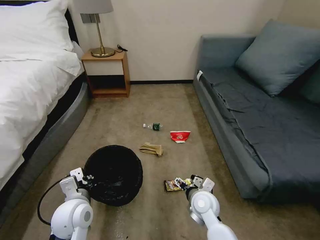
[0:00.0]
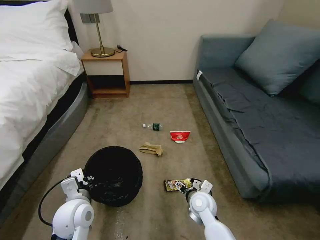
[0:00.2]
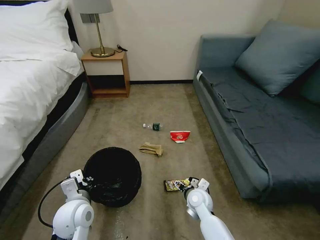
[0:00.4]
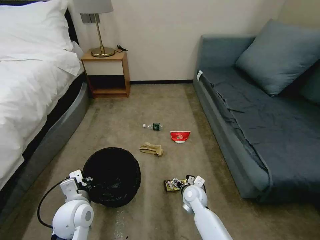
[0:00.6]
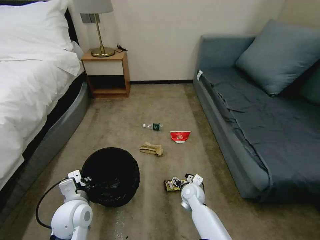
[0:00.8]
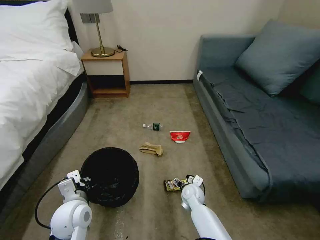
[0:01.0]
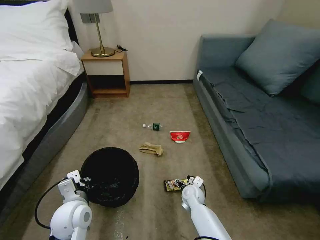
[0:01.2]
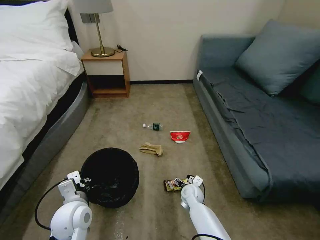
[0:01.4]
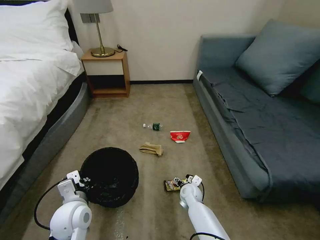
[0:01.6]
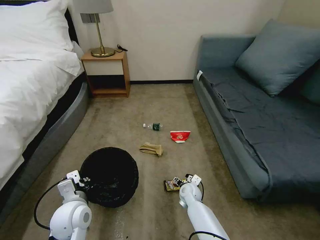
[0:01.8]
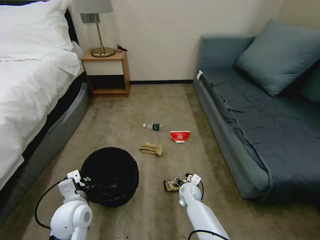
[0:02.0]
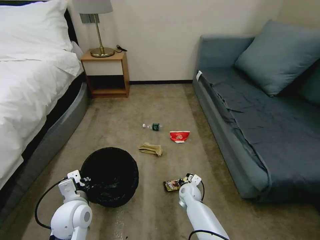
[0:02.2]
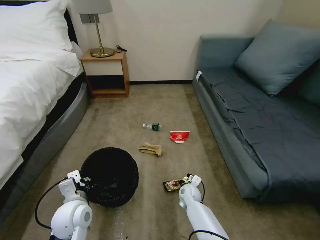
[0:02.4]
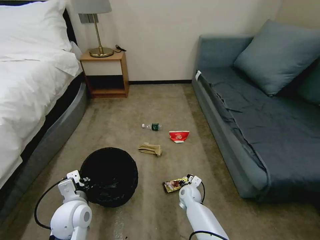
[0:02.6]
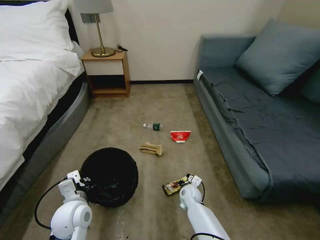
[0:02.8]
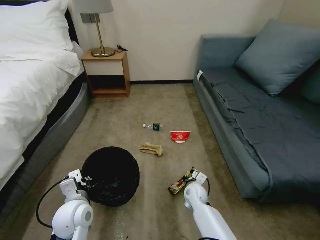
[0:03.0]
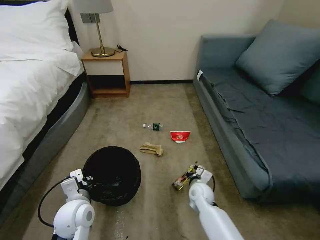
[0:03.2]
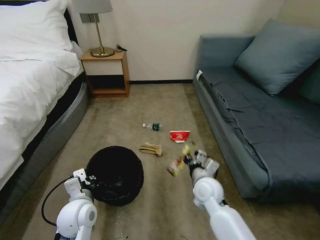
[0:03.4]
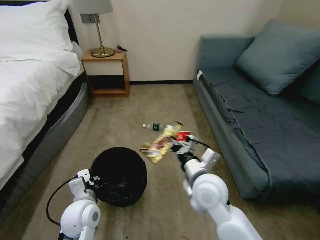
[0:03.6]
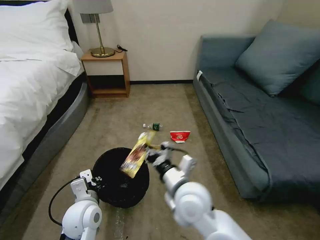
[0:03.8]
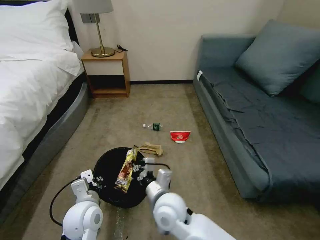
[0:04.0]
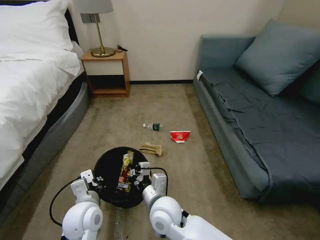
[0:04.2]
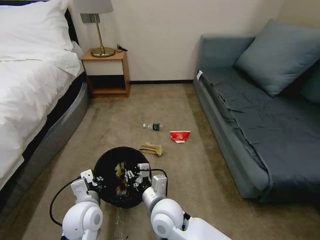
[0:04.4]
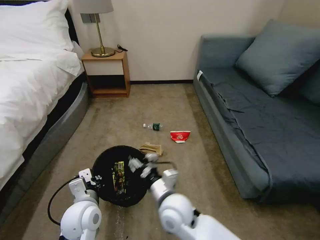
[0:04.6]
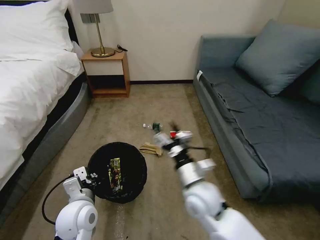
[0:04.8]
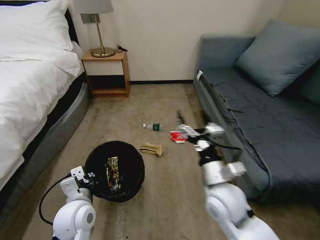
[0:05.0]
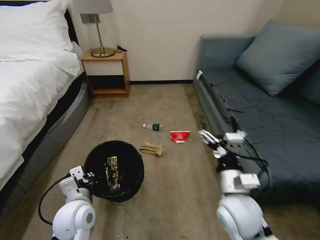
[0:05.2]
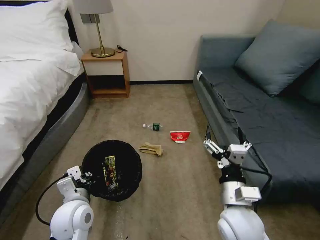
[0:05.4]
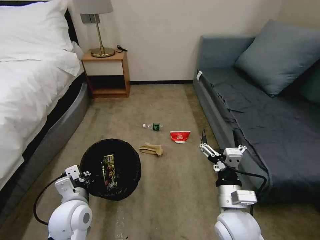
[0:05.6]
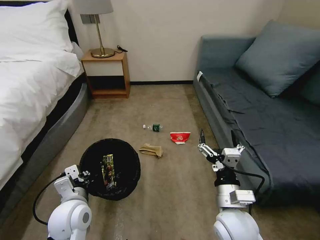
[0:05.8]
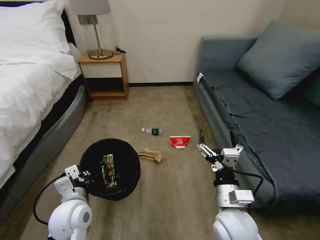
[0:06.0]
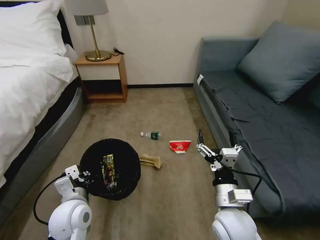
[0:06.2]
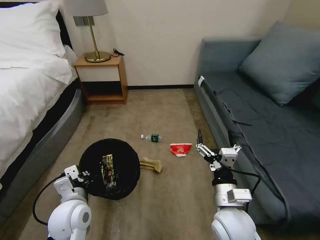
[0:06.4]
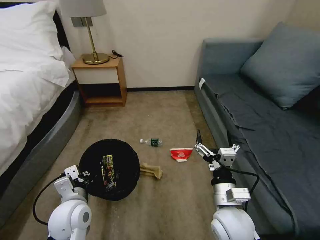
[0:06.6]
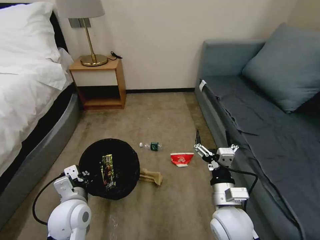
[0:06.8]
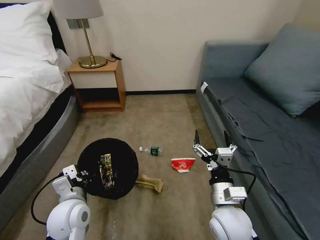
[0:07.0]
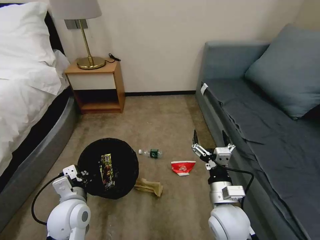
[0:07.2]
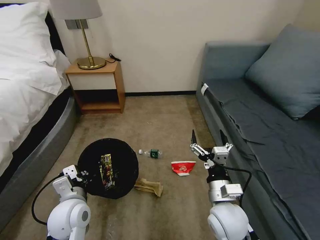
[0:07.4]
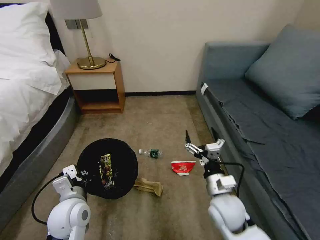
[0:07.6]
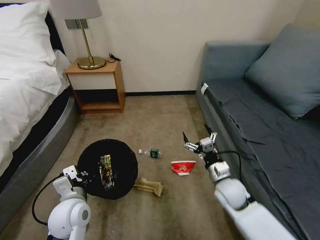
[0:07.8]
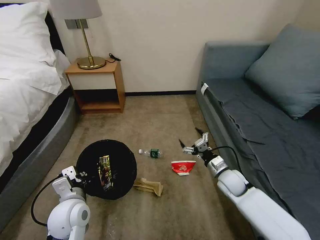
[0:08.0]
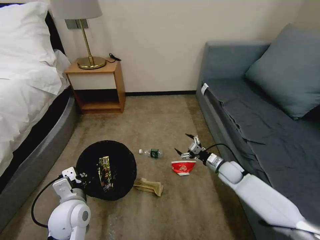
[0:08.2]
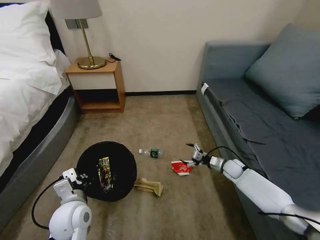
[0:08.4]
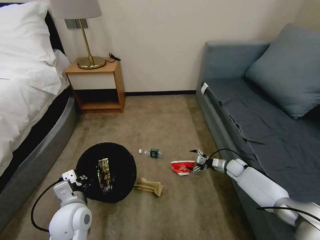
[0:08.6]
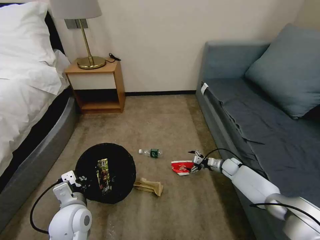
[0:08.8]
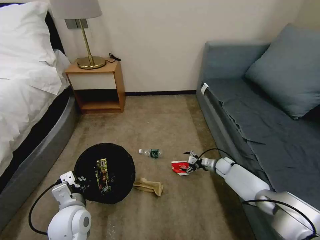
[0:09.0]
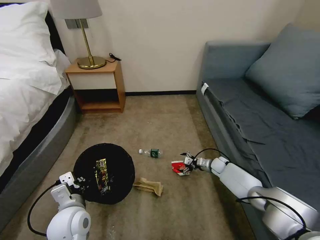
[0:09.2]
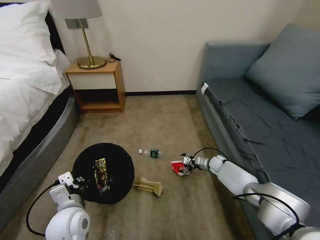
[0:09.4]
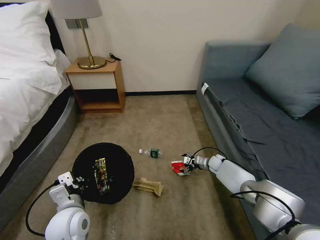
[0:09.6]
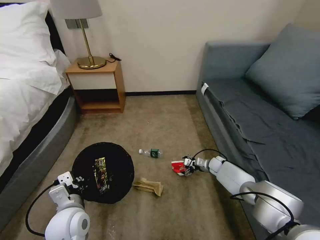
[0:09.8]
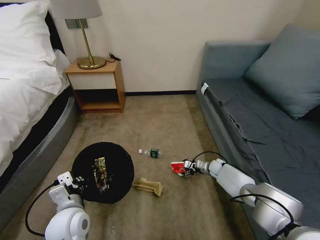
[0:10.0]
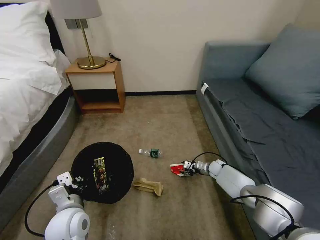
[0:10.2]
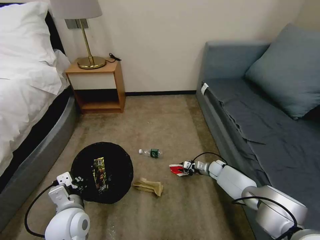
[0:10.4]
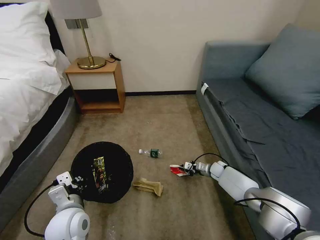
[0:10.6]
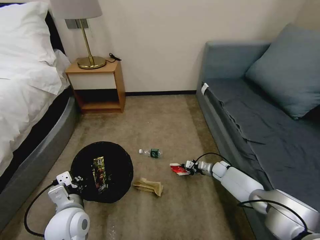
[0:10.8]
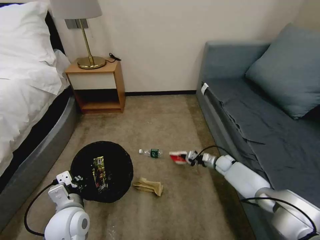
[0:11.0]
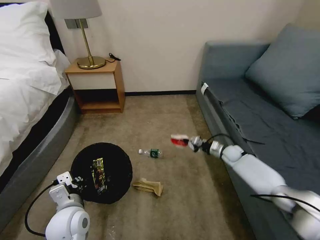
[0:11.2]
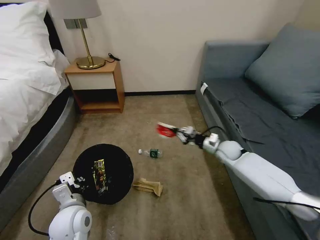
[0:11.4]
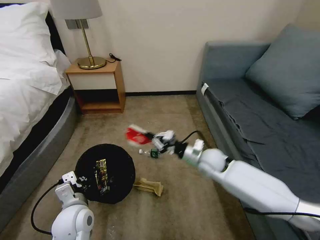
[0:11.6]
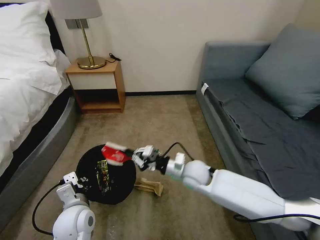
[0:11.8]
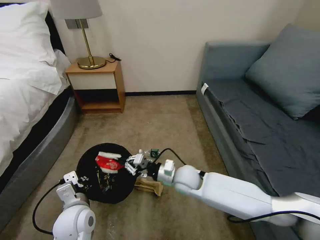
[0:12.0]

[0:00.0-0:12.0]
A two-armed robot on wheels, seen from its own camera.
Task of the whole recording: Pick up the trash bin, then pick up the garbage on the floor and place it into the trash bin.
0:00.0 to 0:01.6: The right gripper moves downward and forward, roughly 15 cm.
0:01.6 to 0:03.0: The right gripper closes.
0:03.0 to 0:04.4: The right gripper moves upward, to the left and backward, about 25 cm.
0:04.4 to 0:06.0: The right gripper shifts approximately 15 cm to the right, and opens up.
0:06.0 to 0:07.6: The right gripper changes place by some 5 cm.
0:07.6 to 0:09.0: The right gripper goes some 35 cm forward, downward and to the right.
0:09.0 to 0:10.4: The right gripper closes.
0:10.4 to 0:12.0: The right gripper goes roughly 30 cm to the left, upward and backward.

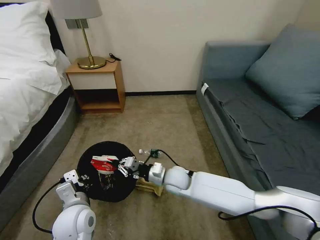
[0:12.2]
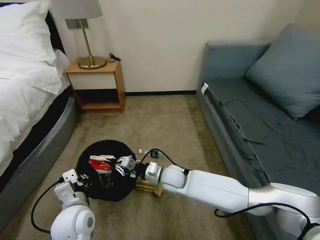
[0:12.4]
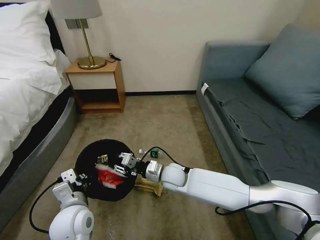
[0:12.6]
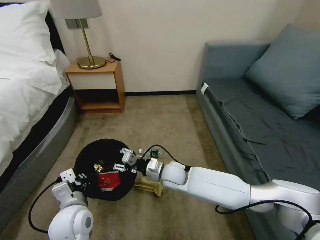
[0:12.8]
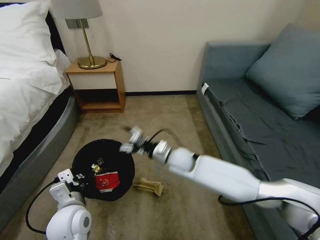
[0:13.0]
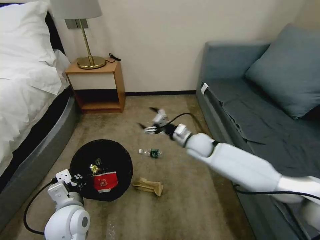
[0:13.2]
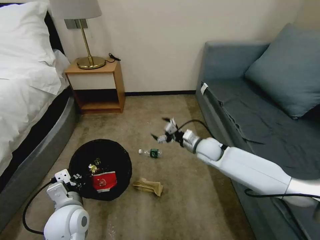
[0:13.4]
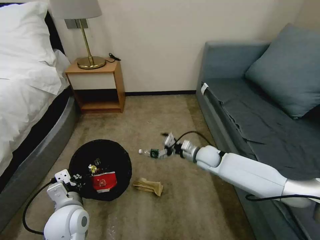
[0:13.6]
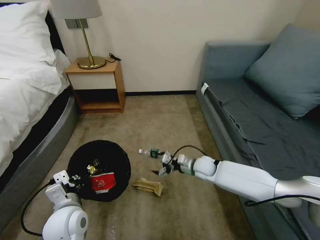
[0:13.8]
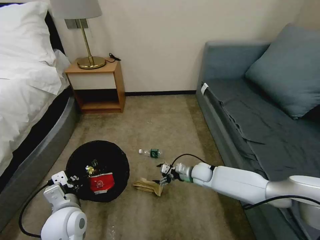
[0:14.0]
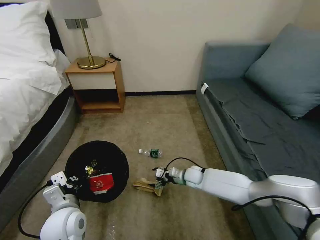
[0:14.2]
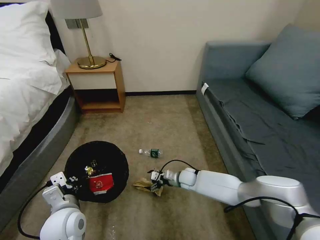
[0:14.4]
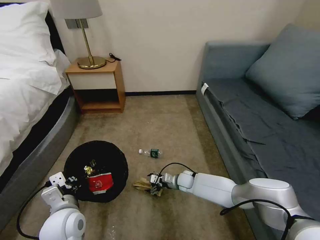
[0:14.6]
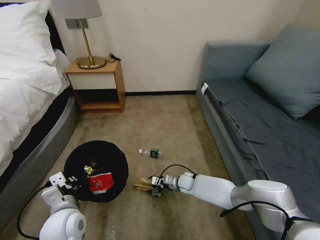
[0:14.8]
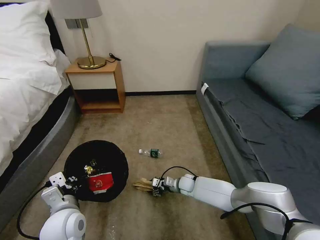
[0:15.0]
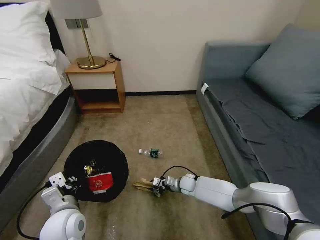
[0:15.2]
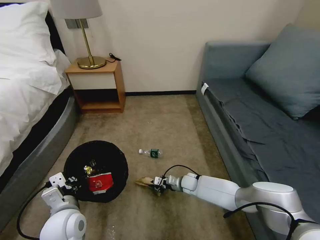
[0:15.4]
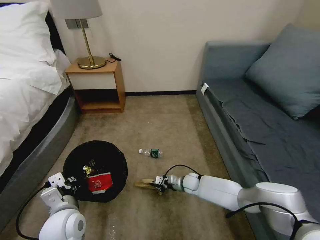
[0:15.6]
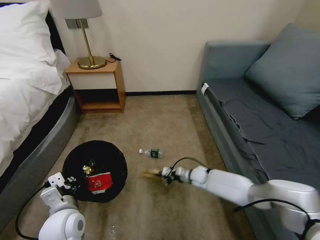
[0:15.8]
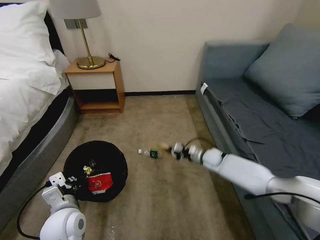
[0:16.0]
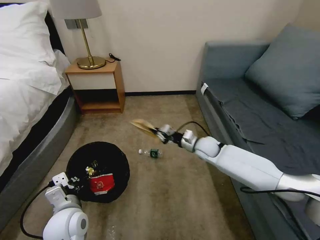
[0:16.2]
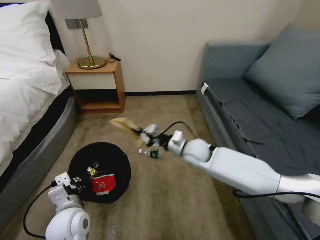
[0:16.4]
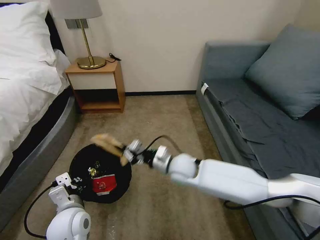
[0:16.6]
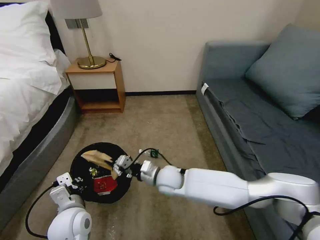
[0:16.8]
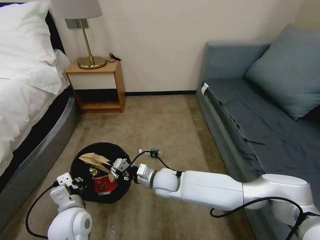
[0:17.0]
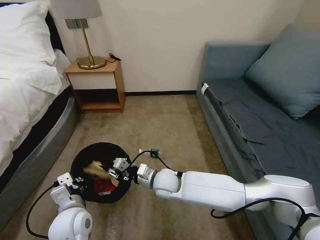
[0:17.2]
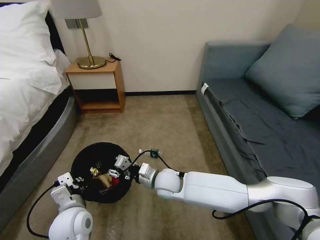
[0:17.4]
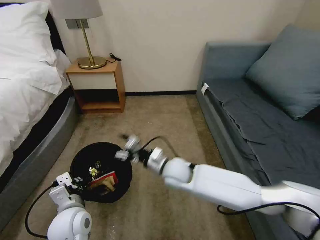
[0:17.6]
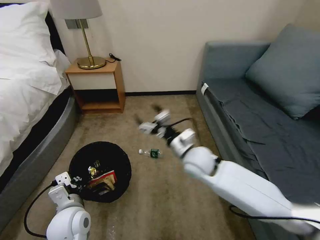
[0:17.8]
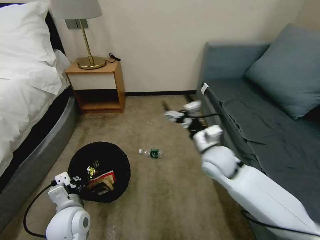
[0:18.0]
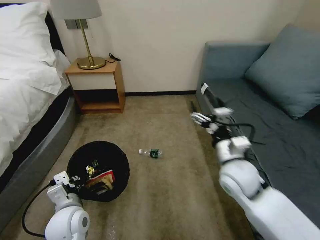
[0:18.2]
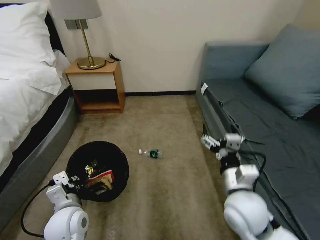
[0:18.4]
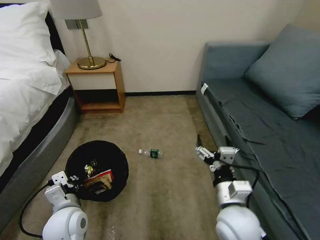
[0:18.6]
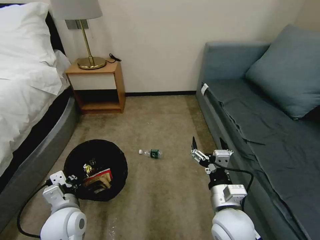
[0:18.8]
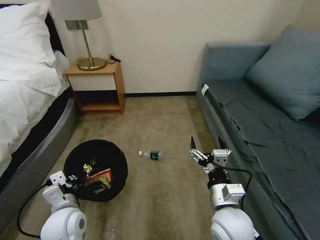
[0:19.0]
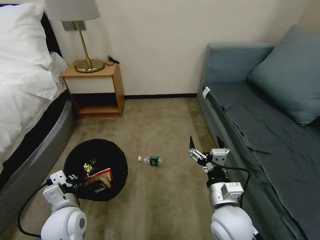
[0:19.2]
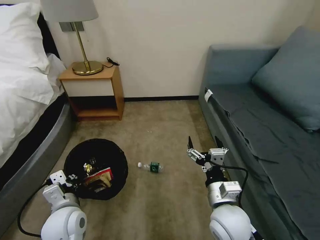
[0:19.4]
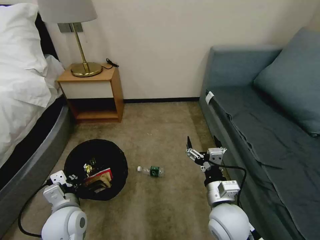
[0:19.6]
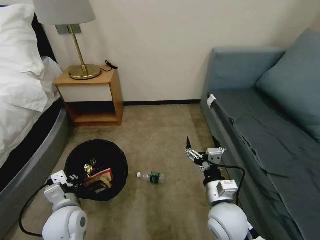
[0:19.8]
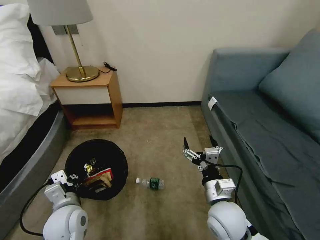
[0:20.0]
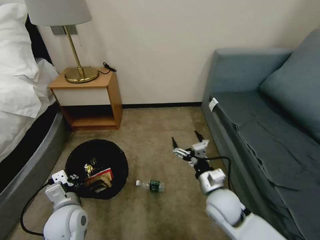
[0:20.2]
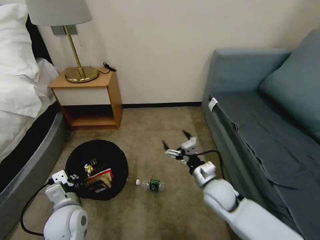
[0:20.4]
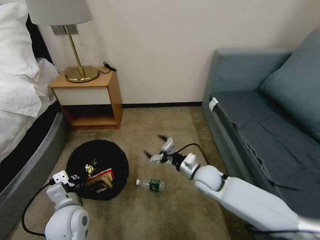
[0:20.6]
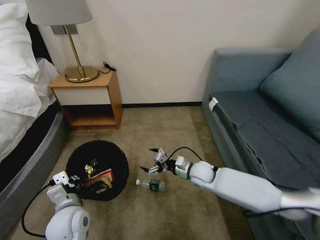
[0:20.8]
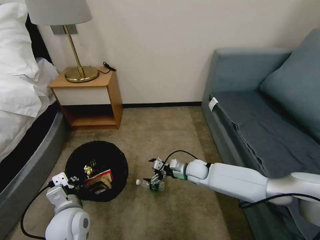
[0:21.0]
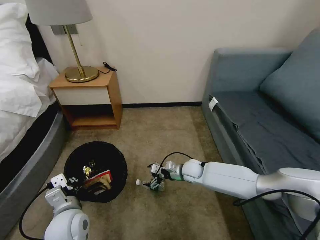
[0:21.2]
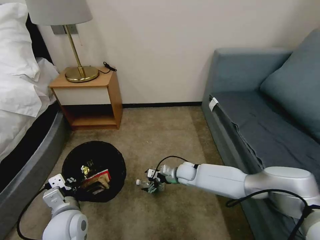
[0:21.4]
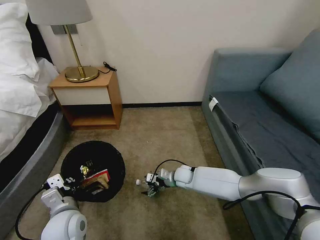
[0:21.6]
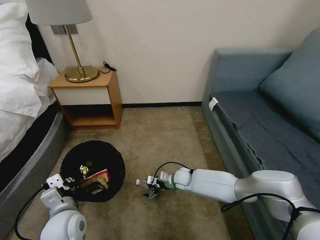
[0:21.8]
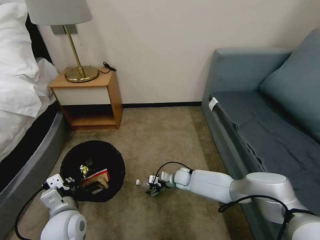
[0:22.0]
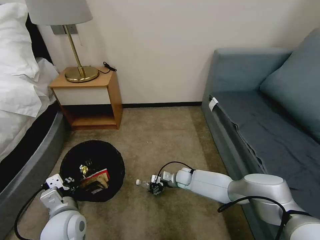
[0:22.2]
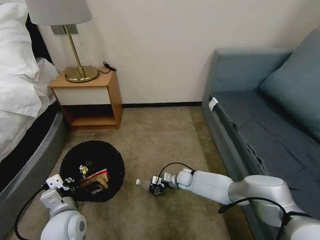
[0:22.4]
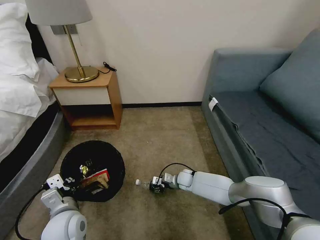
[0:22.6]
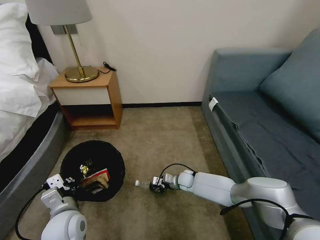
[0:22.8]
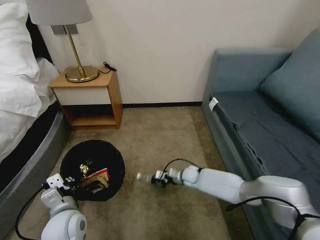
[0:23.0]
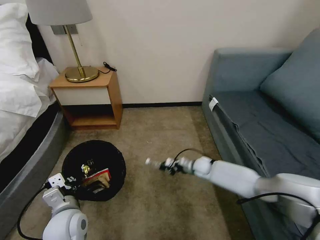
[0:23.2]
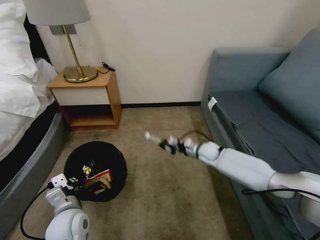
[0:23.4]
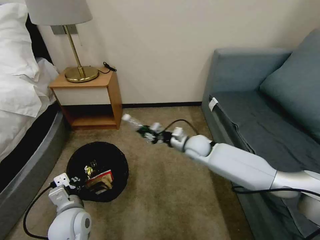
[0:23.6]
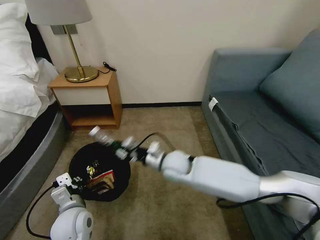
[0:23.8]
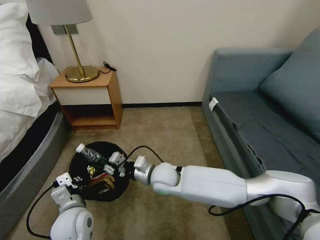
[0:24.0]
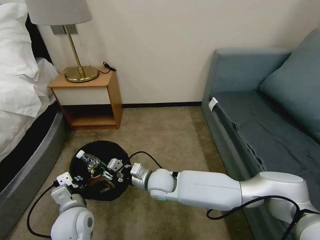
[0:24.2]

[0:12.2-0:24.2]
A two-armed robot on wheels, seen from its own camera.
Task of the whole recording: Pick up the trash bin, then pick up the garbage on the floor and place it into the trash bin.
0:12.2 to 0:13.8: The right gripper shifts some 15 cm to the right and forward, and opens its fingers.
0:13.8 to 0:15.2: The right gripper is displaced downward by roughly 15 cm, and closes its fingers.
0:15.2 to 0:16.6: The right gripper shifts approximately 20 cm upward, and closes up.
0:16.6 to 0:18.2: The right gripper travels to the right, upward and backward by some 20 cm, and opens.
0:18.2 to 0:19.8: The right gripper shifts some 10 cm backward and downward.
0:19.8 to 0:21.2: The right gripper heads forward and downward, covering roughly 25 cm.
0:21.2 to 0:22.6: The right gripper shifts some 10 cm downward, and closes.
0:22.6 to 0:24.2: The right gripper shifts about 25 cm upward, to the left and backward.
